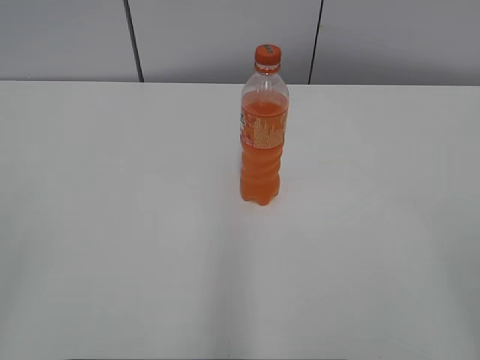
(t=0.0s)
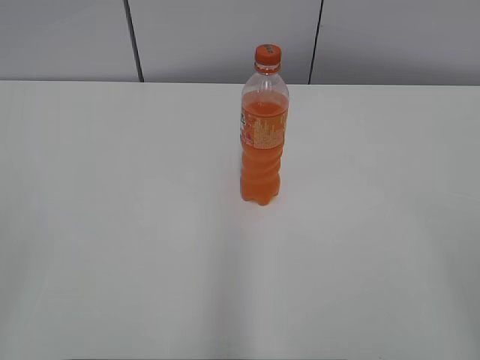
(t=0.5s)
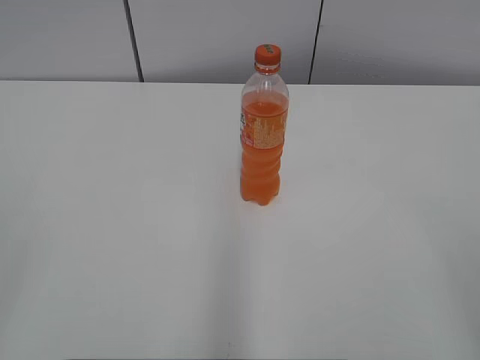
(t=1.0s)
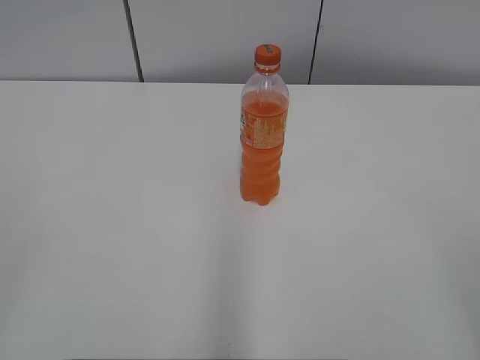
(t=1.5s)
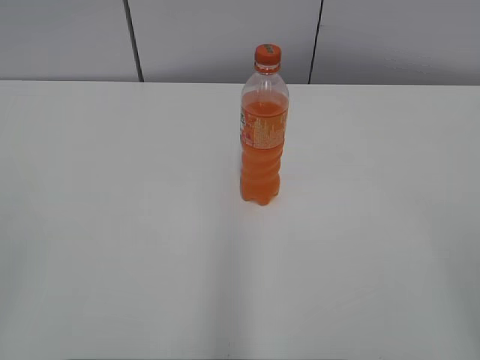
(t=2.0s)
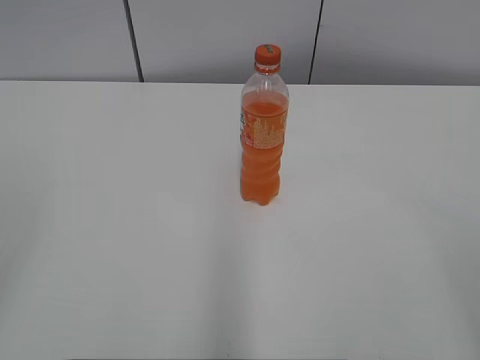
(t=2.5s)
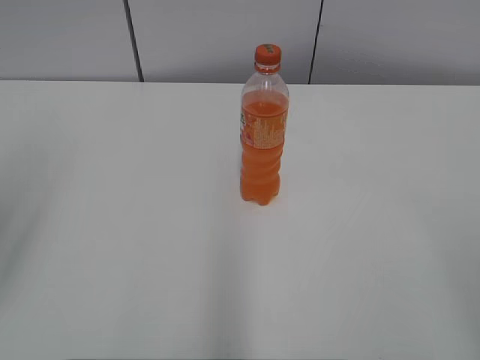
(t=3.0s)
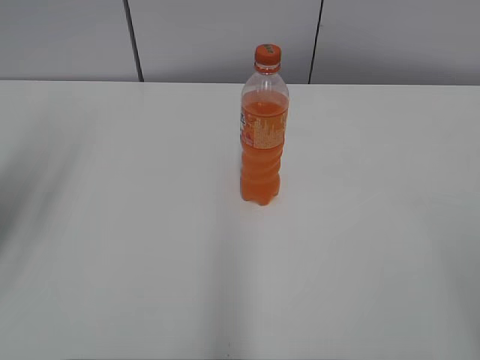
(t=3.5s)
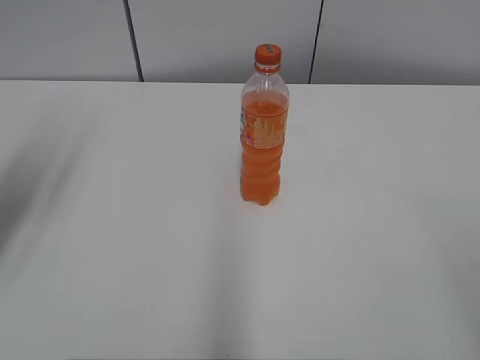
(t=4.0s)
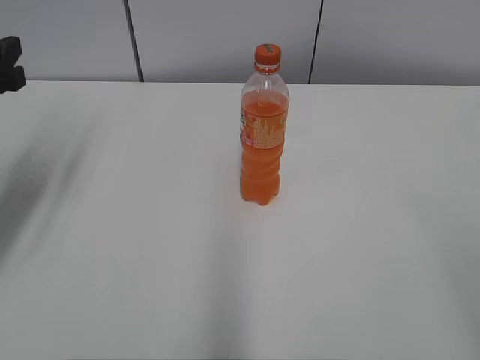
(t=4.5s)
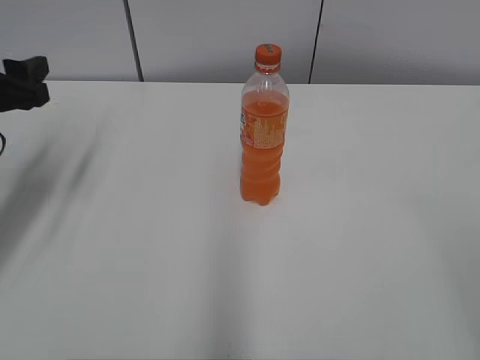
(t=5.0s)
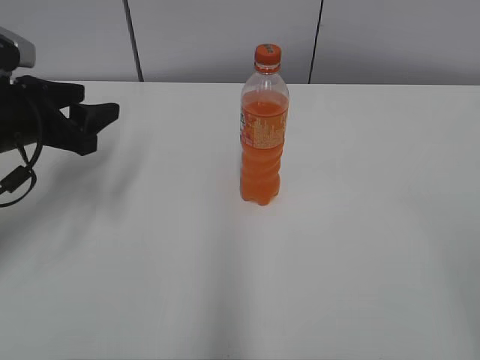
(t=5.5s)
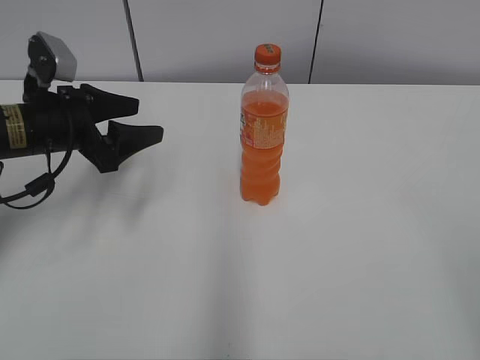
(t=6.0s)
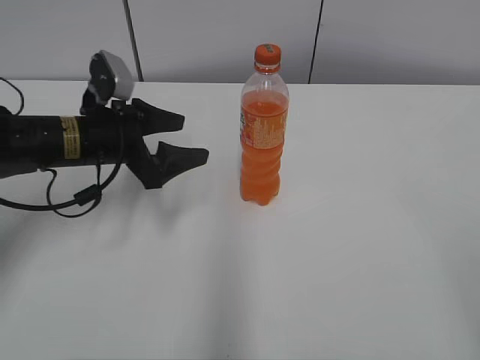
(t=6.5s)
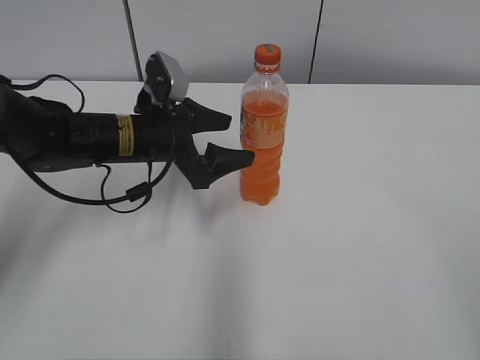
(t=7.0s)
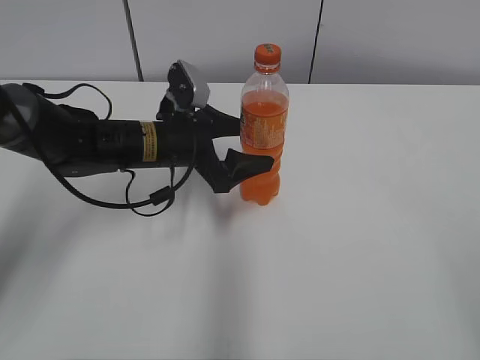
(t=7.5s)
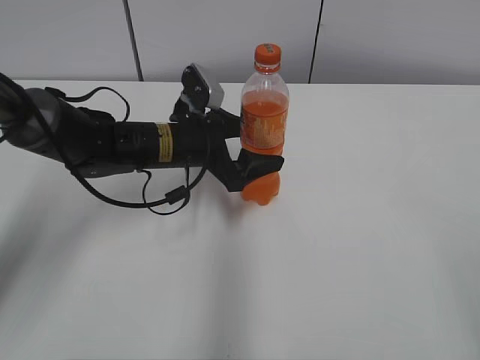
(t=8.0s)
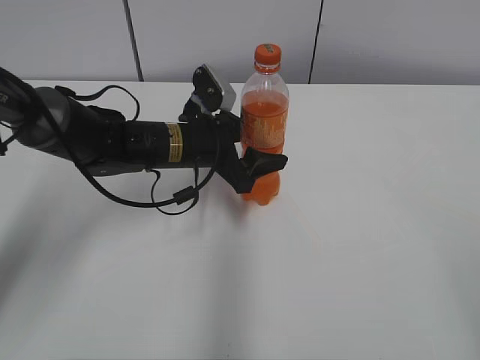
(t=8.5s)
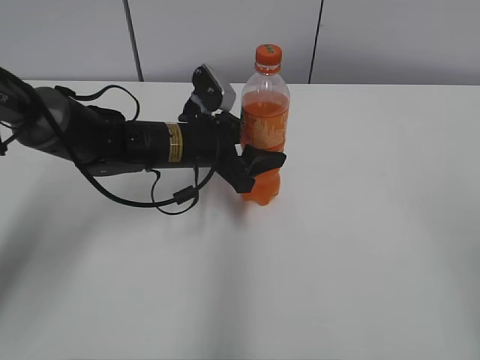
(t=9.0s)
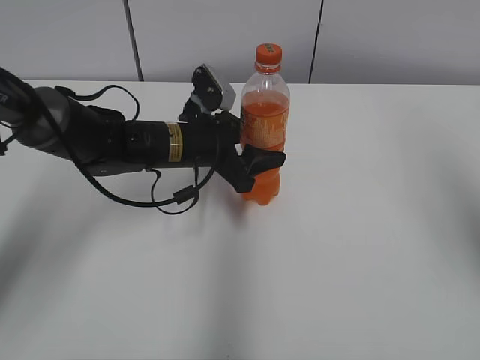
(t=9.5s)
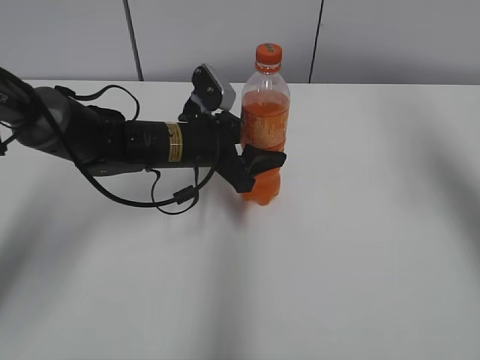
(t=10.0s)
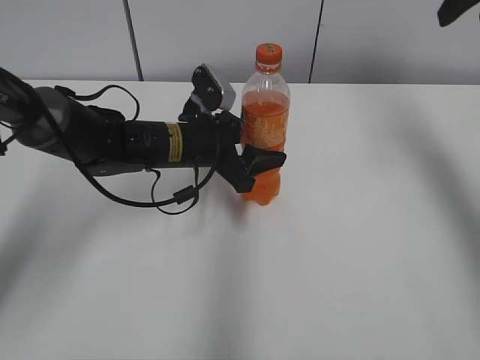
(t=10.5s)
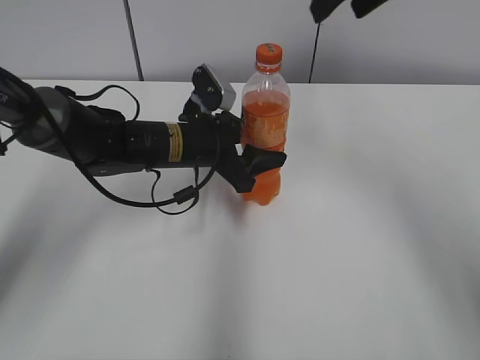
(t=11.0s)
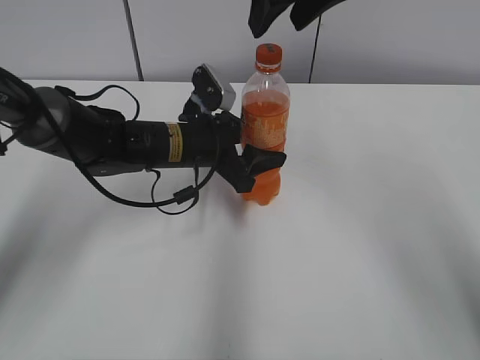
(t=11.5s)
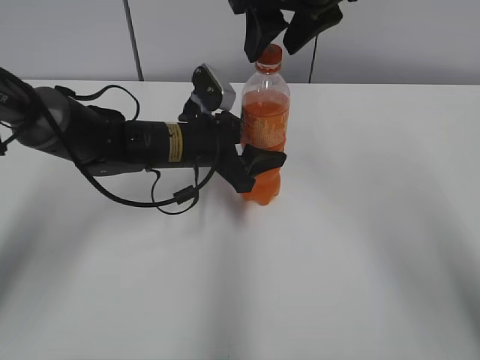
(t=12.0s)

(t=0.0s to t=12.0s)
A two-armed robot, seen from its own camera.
Step, t=0.0s - t=8.5s: Grab the Mirinda with the left hand.
t=2.0s - t=4.0s: The left gripper shifts roughly 25 cm forward.
t=4.0s - t=6.0s: The left gripper is displaced downward, forward and to the right by roughly 15 cm.
t=6.0s - t=8.0s: The left gripper shifts approximately 15 cm to the right, and opens.
t=8.0s - t=10.0s: The right gripper travels forward by some 30 cm; the left gripper closes its fingers.
t=10.0s - t=12.0s: The right gripper heads to the left, covering some 20 cm.

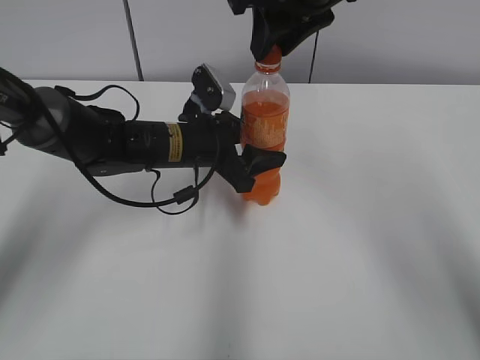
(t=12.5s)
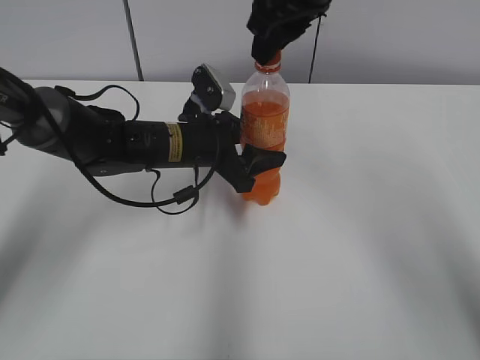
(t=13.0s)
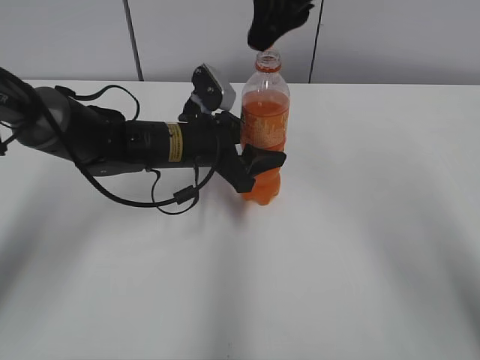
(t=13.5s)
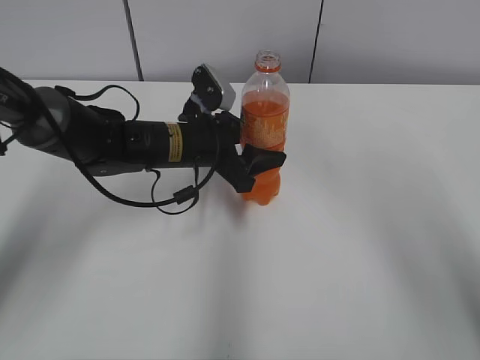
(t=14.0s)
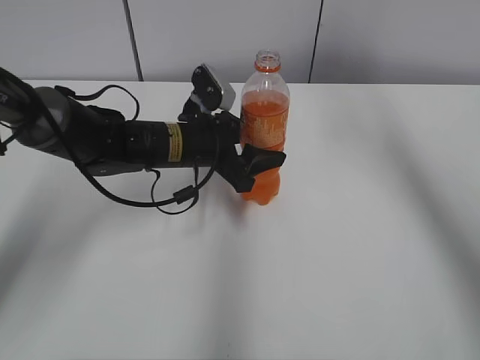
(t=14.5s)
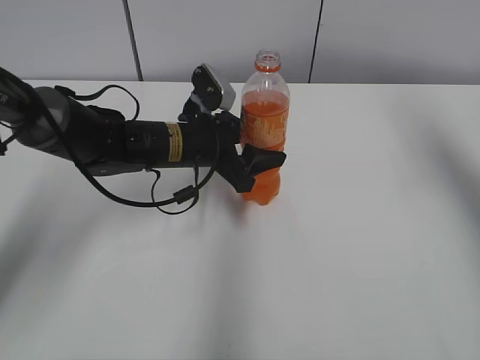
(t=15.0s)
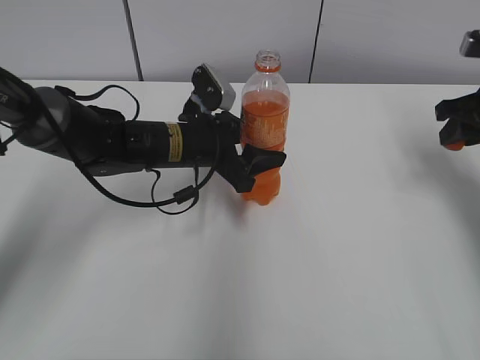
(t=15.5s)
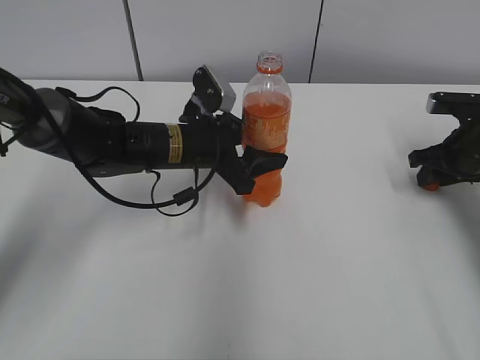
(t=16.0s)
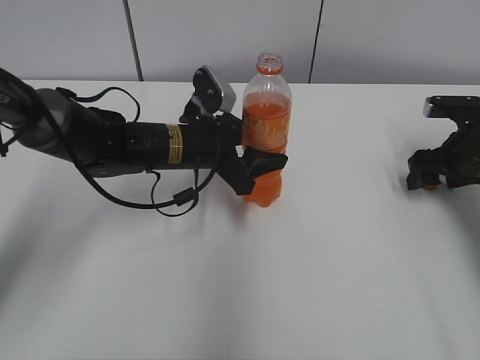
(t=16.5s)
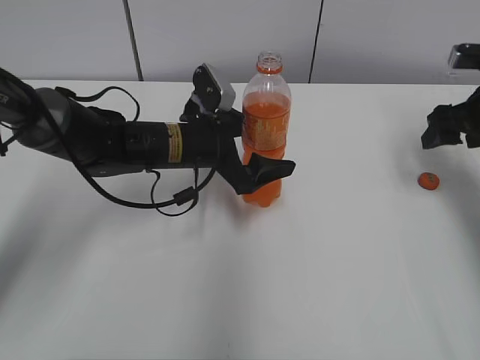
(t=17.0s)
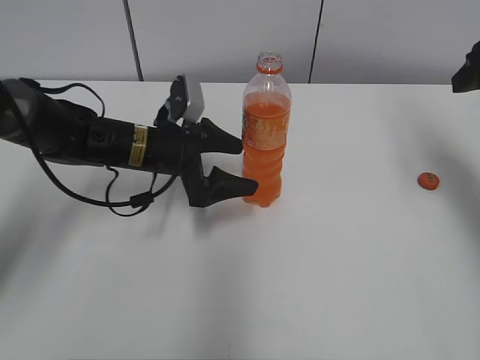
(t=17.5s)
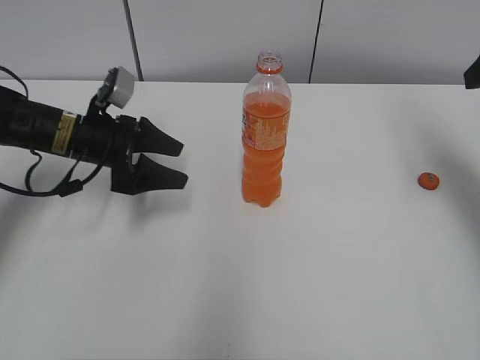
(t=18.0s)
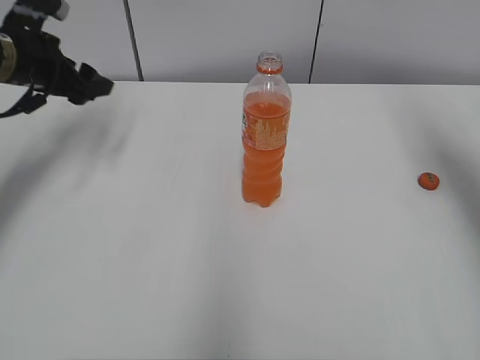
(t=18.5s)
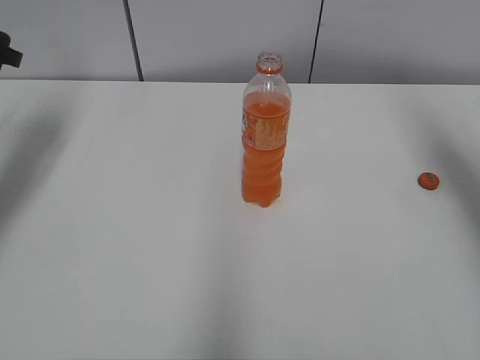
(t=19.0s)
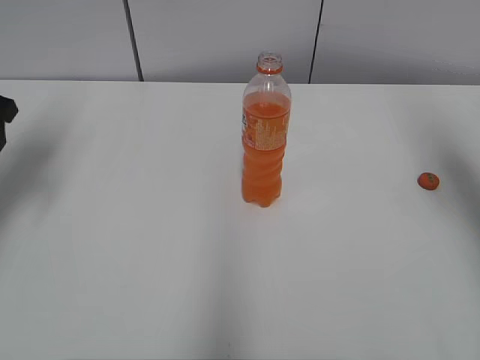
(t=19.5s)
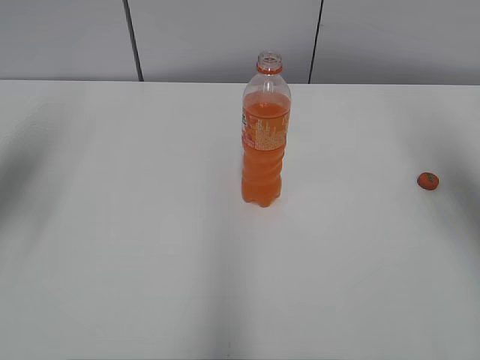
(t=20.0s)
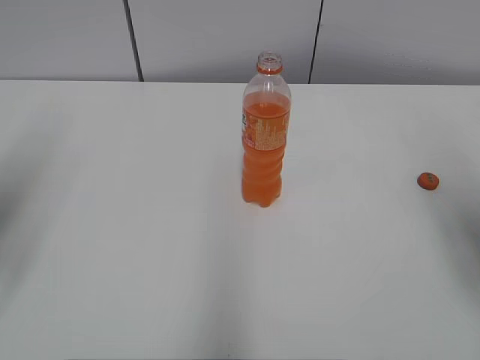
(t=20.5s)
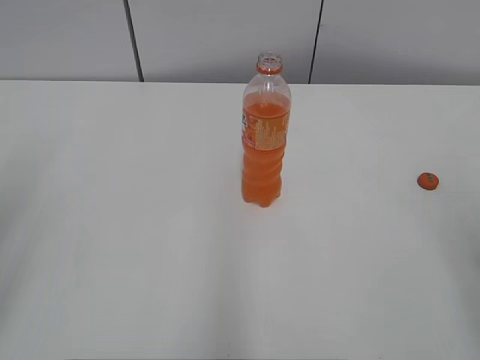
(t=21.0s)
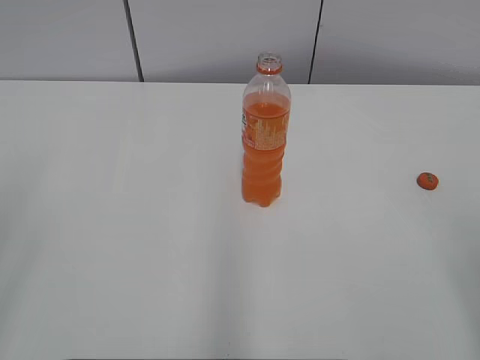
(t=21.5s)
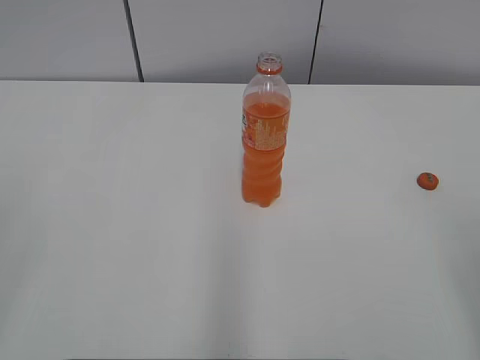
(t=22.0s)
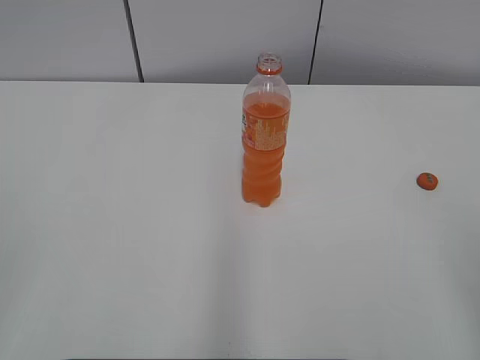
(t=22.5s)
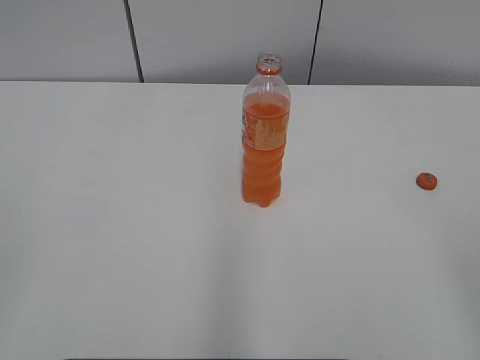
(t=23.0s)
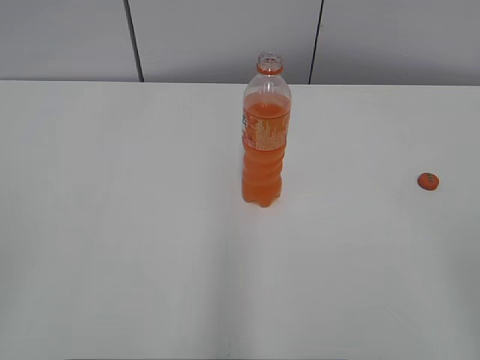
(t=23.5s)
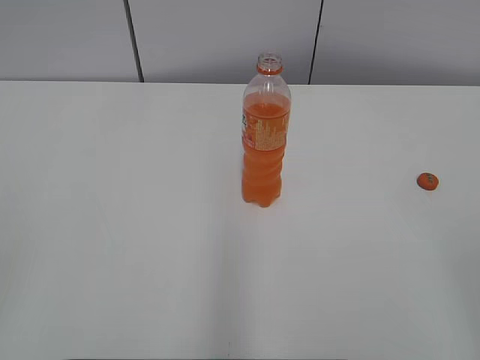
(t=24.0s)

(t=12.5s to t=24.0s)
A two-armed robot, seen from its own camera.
Step, t=13.5s - t=16.0s: Place the bottle cap on the right.
t=12.5s - t=14.5s: The right gripper moves to the right and upward, some 15 cm.
t=14.5s - t=16.5s: The right gripper goes some 35 cm downward and to the right, and opens up.
t=16.5s - t=18.5s: The left gripper heads to the left and upward, covering approximately 20 cm, and opens its fingers. The right gripper heads upward, covering approximately 20 cm.
t=18.5s - t=20.0s: The left gripper heads backward and upward, covering approximately 15 cm.
t=20.0s - t=22.0s: Both grippers travel together backward, roughly 25 cm.
